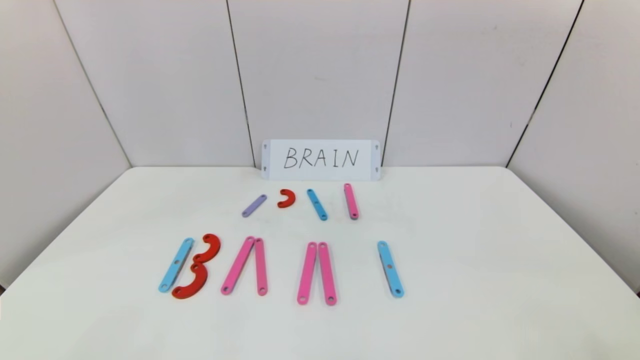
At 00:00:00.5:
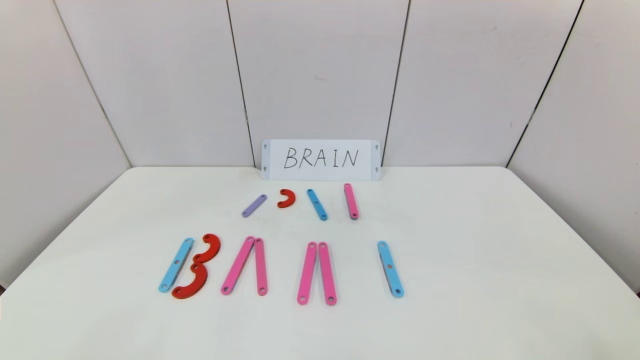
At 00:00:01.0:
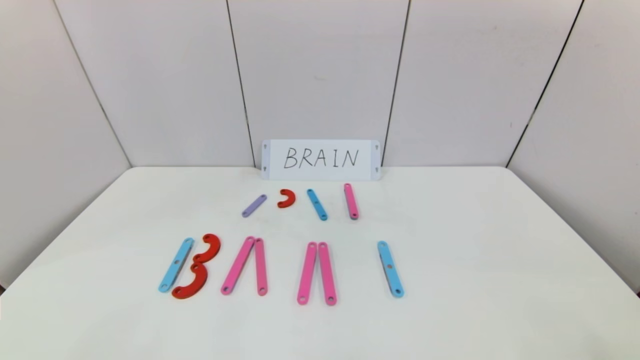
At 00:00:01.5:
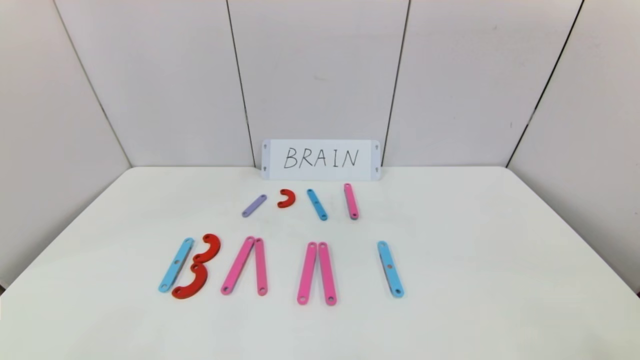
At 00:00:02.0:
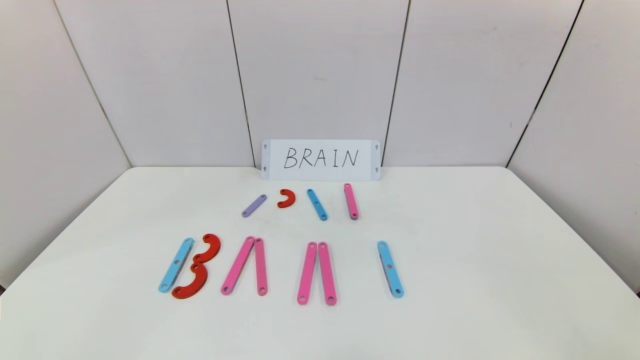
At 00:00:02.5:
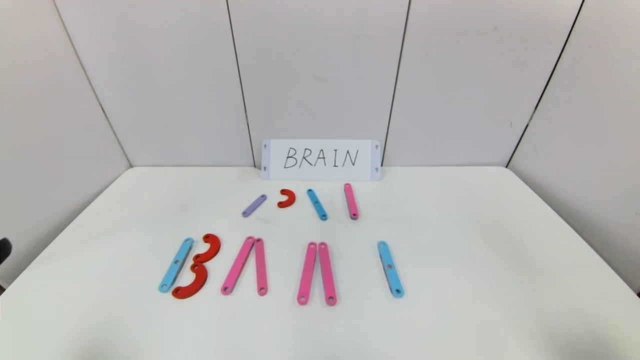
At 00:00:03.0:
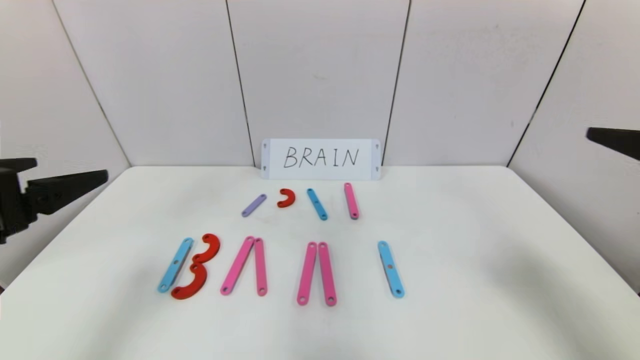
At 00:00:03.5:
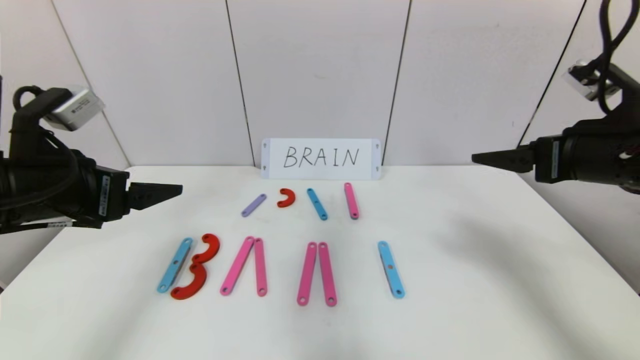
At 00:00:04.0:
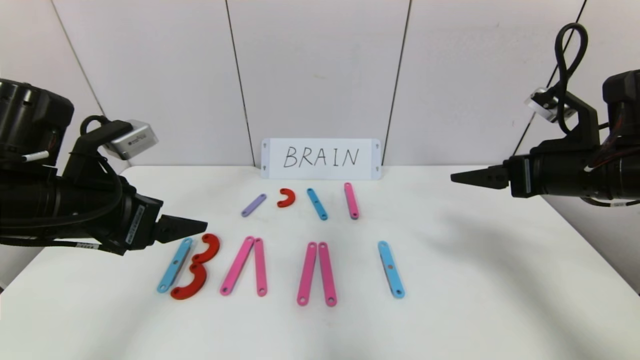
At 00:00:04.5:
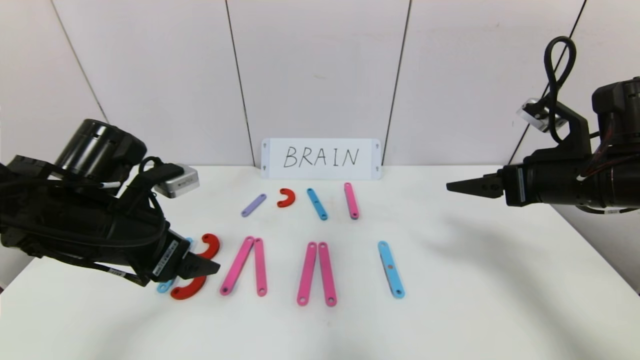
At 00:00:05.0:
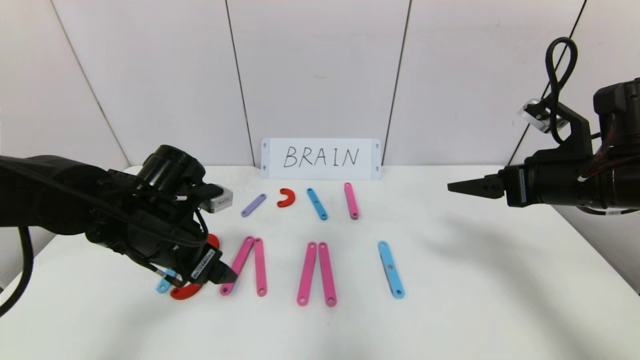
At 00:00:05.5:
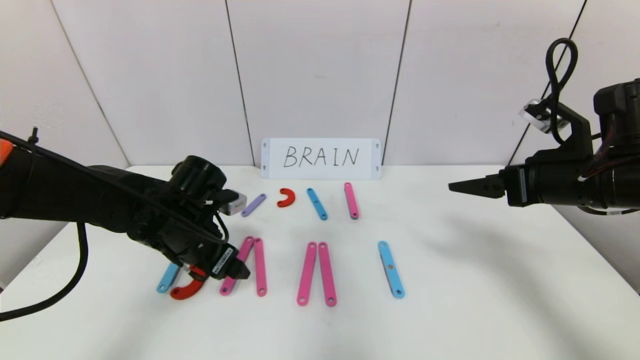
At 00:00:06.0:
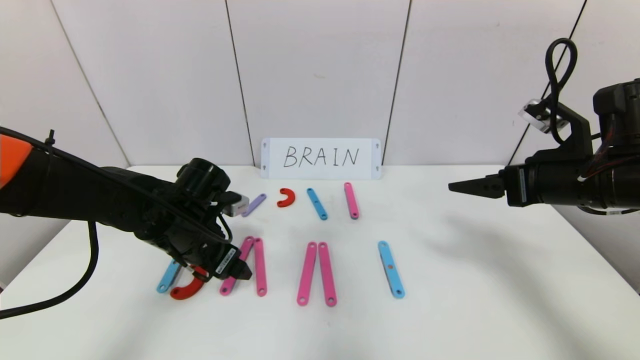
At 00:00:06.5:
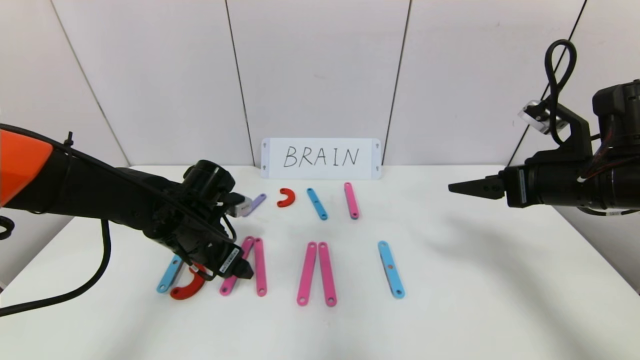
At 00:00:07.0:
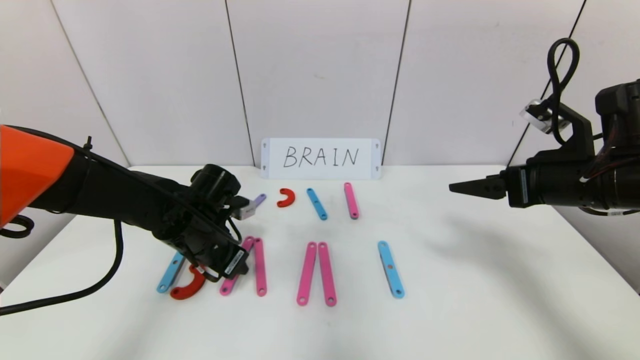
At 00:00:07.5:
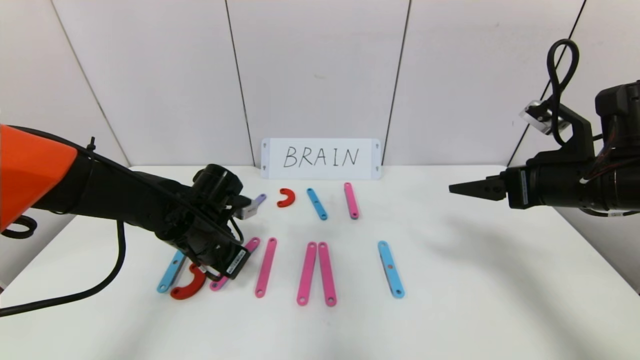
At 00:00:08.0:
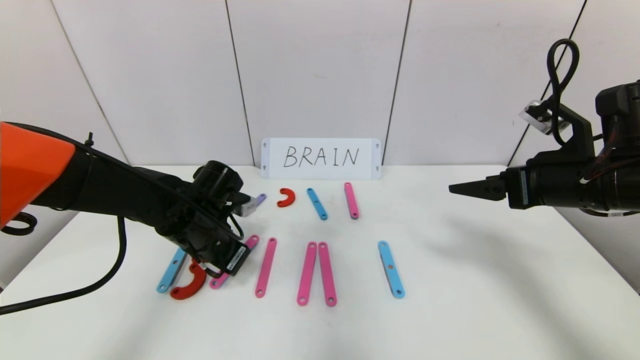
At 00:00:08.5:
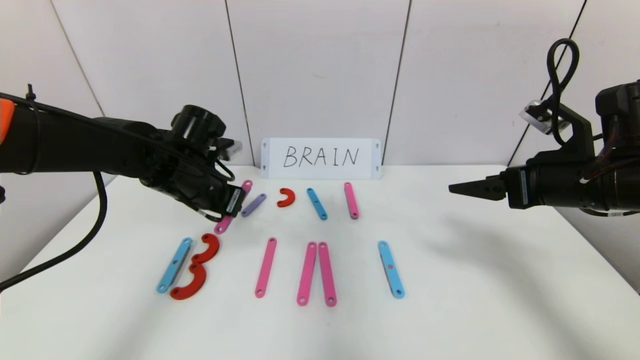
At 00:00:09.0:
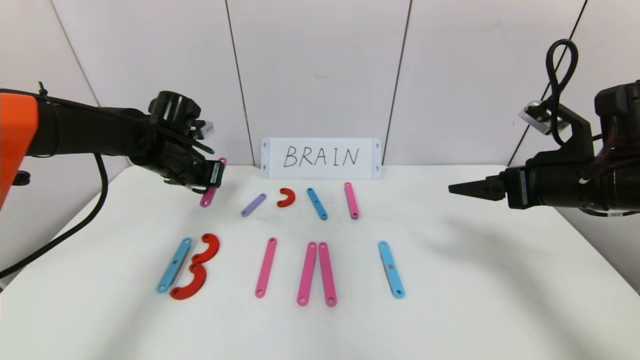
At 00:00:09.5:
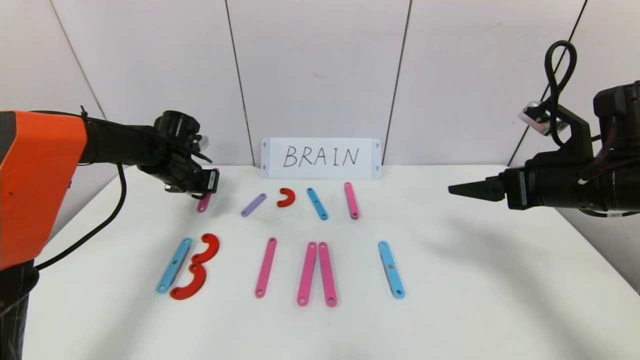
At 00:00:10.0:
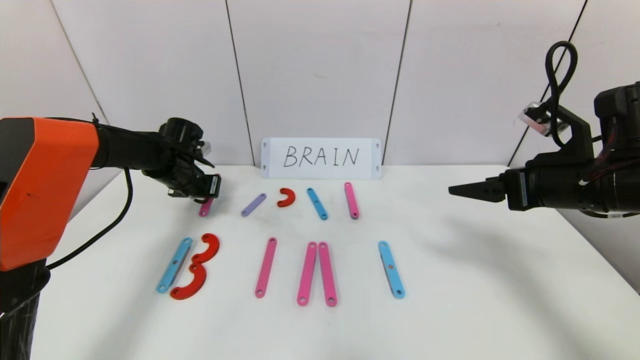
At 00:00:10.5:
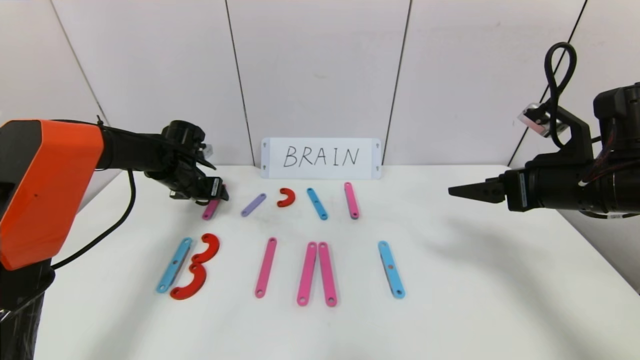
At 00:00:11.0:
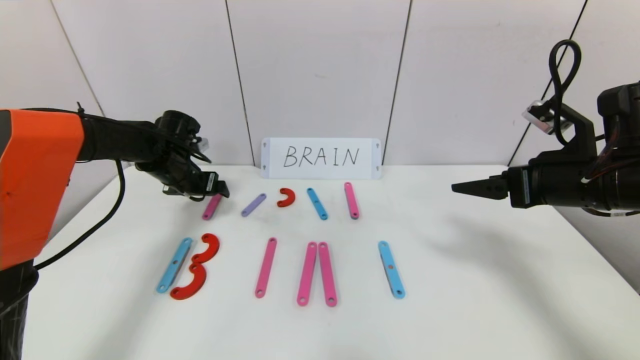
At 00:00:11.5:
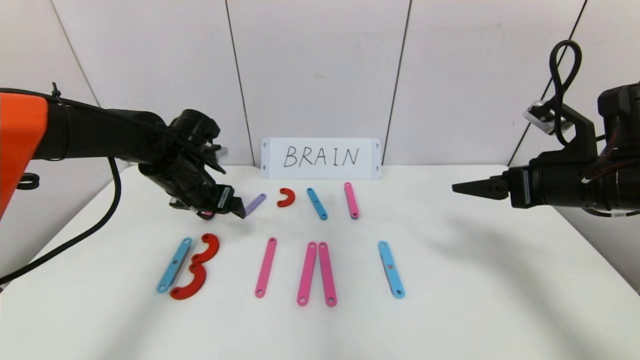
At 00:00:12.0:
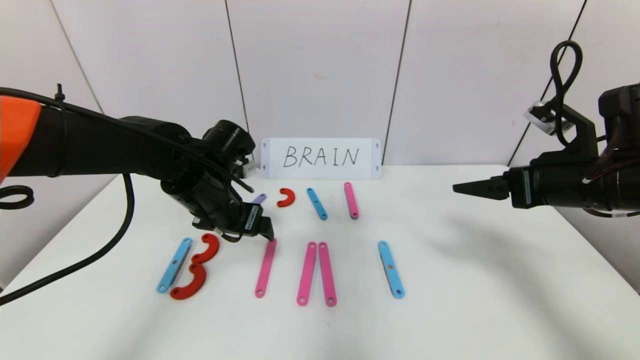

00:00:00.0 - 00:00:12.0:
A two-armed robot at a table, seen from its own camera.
Task of the whole recording: rearrange the word baai as brain.
00:00:02.0 - 00:00:04.0: The grippers both shift forward by about 25 cm.
00:00:04.0 - 00:00:06.0: The left gripper is displaced downward, forward and to the right by roughly 15 cm.
00:00:06.0 - 00:00:08.0: The left gripper closes up.
00:00:08.0 - 00:00:10.0: The left gripper moves forward and to the left, roughly 15 cm.
00:00:10.0 - 00:00:12.0: The left gripper moves backward and to the right, roughly 20 cm, and opens up.

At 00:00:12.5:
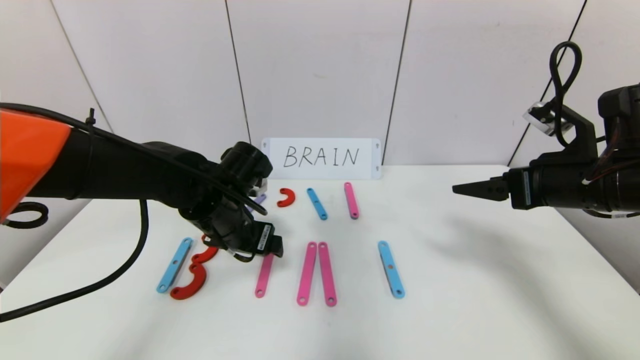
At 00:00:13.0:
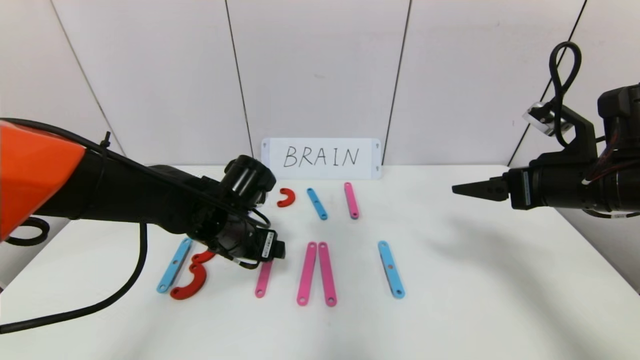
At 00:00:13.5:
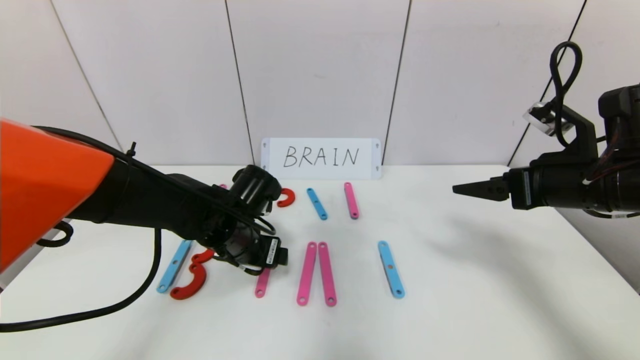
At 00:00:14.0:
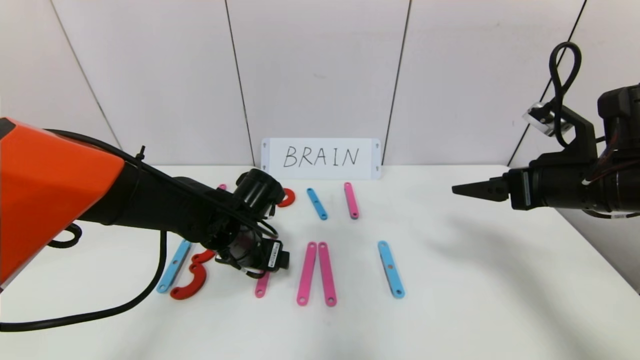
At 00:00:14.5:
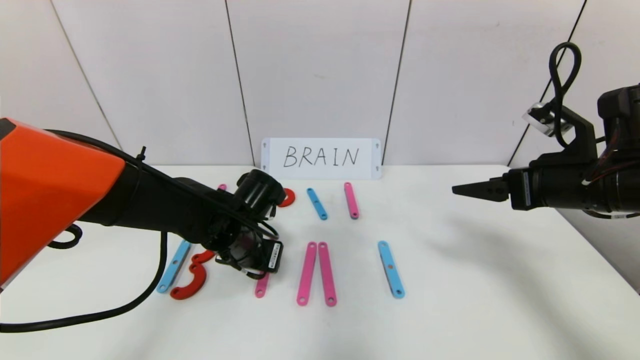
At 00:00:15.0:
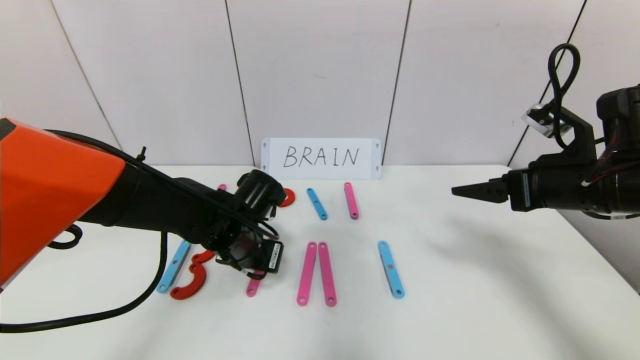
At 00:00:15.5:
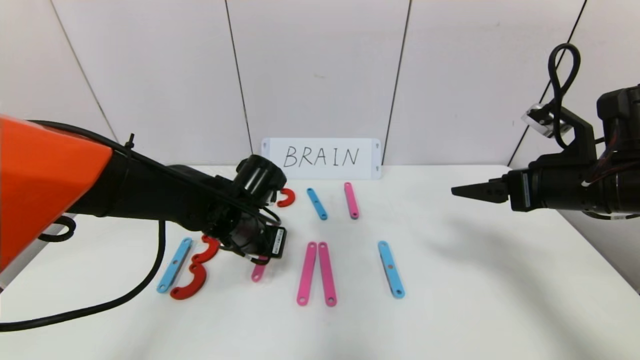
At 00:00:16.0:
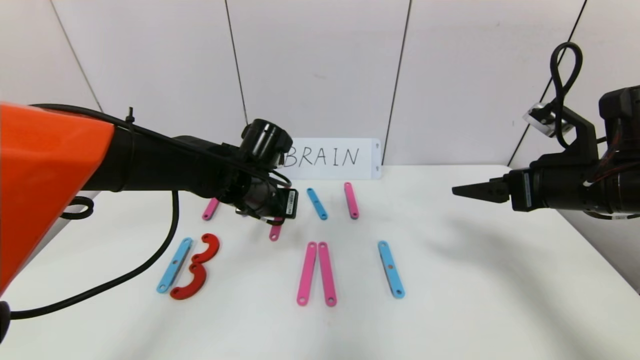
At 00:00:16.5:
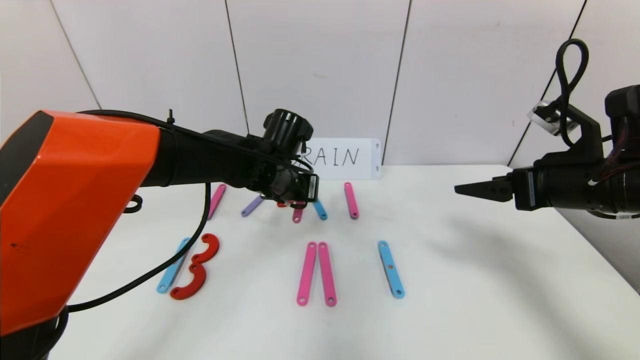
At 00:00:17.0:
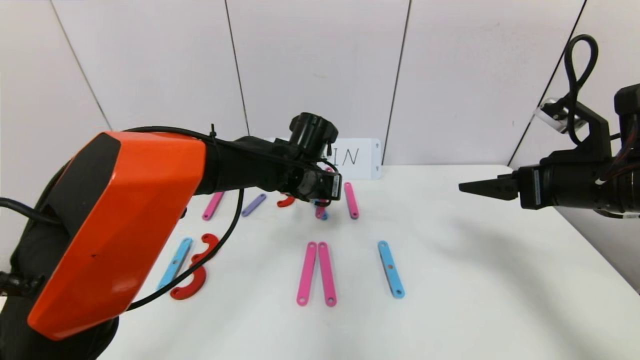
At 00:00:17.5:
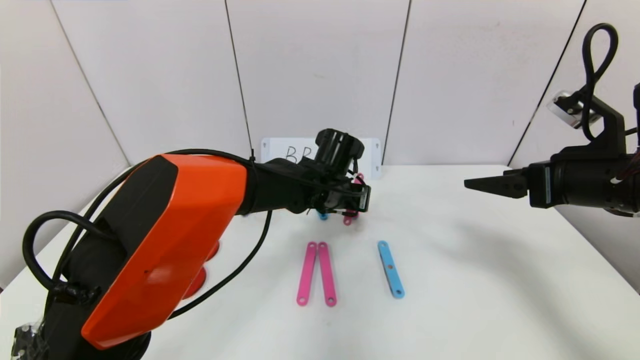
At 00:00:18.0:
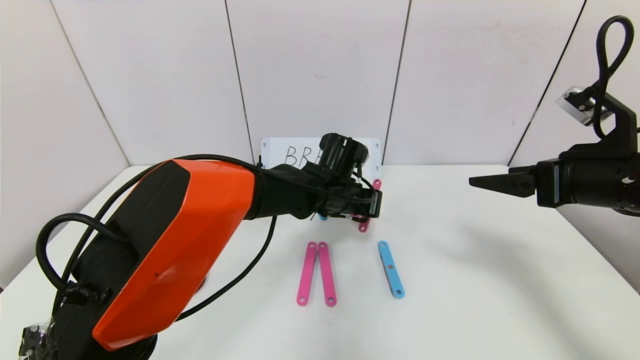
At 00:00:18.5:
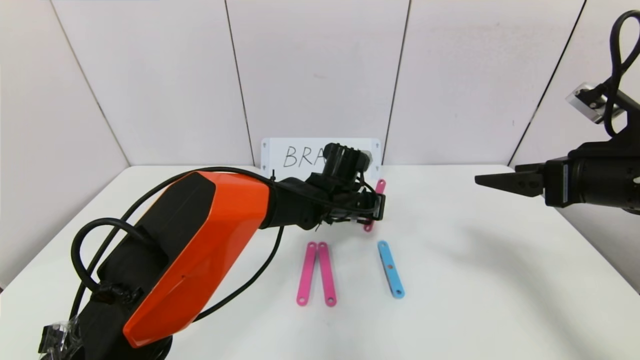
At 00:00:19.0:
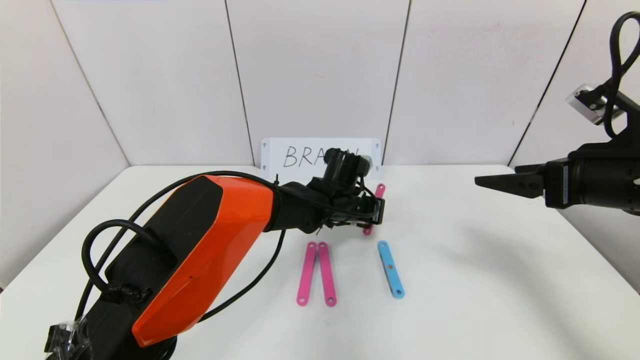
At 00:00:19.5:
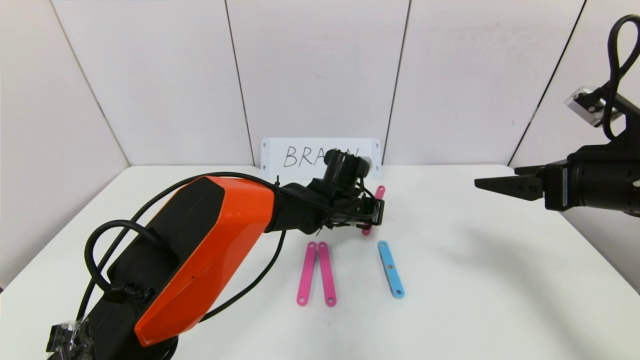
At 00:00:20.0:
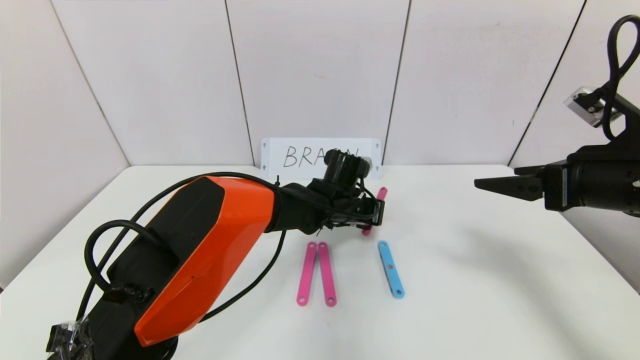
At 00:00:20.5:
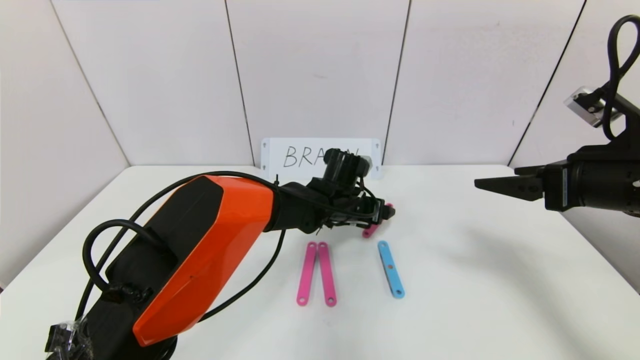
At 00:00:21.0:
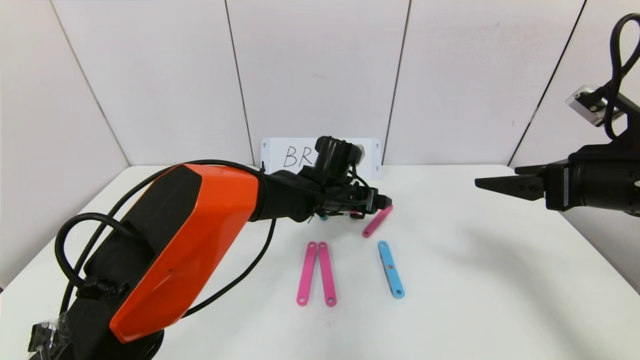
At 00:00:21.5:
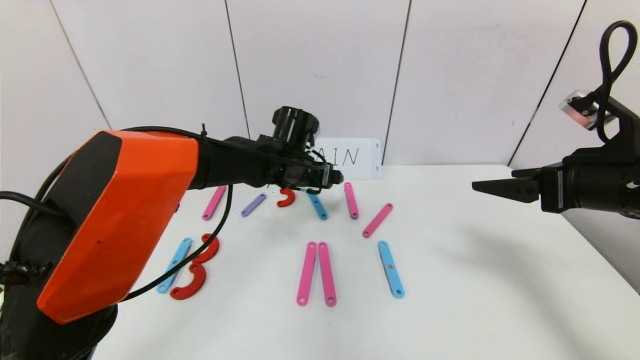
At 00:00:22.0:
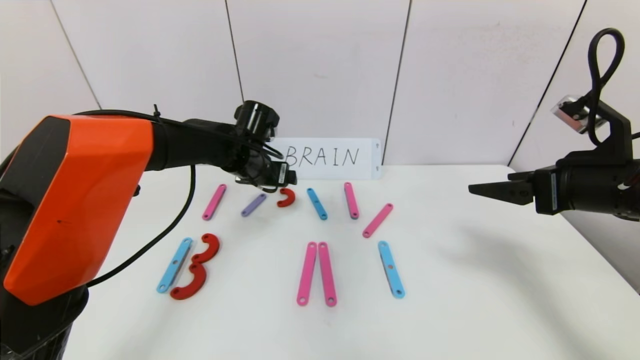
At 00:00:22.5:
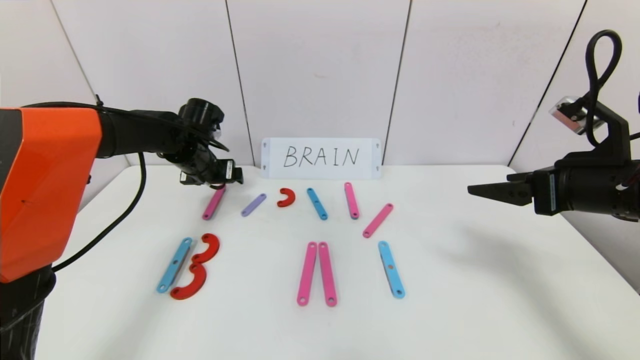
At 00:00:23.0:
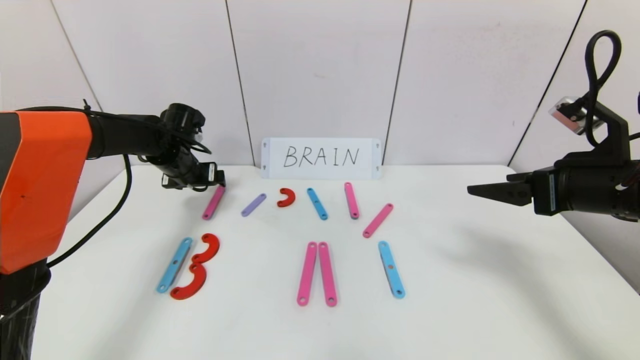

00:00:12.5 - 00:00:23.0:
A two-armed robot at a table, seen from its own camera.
Task of the whole recording: rearrange the word baai as brain.
Step, 00:00:12.5 - 00:00:21.0: Disassemble the second character A.
00:00:12.5 - 00:00:14.5: The left gripper closes.
00:00:14.5 - 00:00:16.5: The left gripper moves forward, upward and to the right, about 10 cm, and closes up.
00:00:16.5 - 00:00:19.0: The left gripper shifts roughly 15 cm to the right and downward.
00:00:19.0 - 00:00:21.0: The left gripper opens its fingers.
00:00:21.0 - 00:00:23.0: The left gripper goes about 30 cm to the left.
